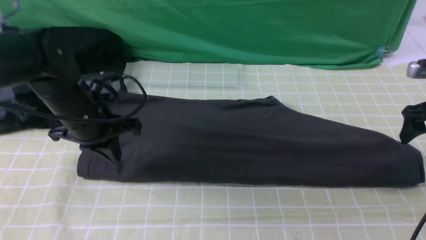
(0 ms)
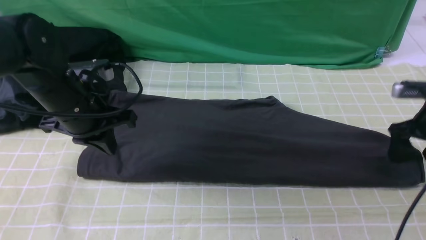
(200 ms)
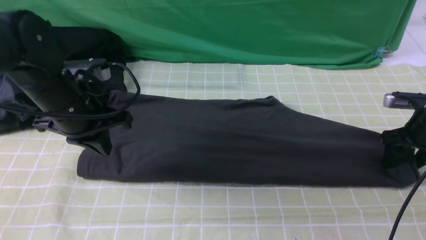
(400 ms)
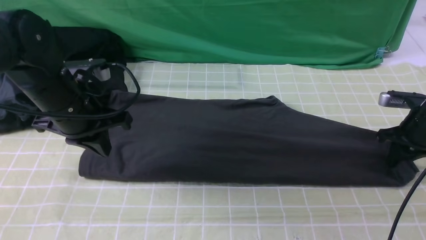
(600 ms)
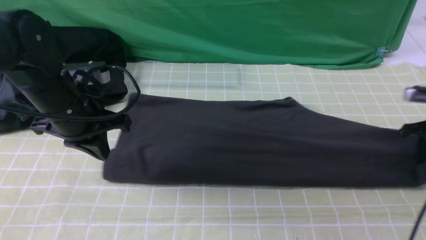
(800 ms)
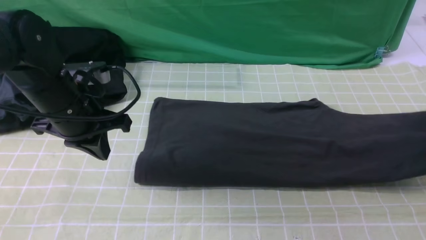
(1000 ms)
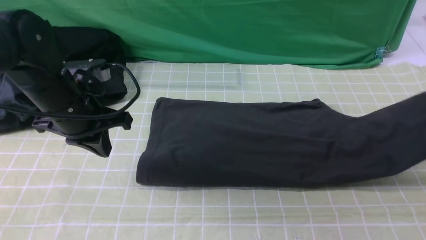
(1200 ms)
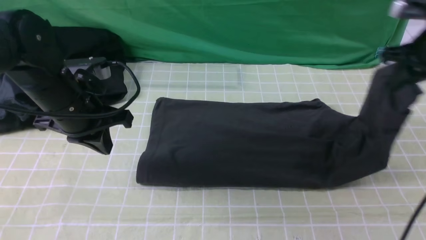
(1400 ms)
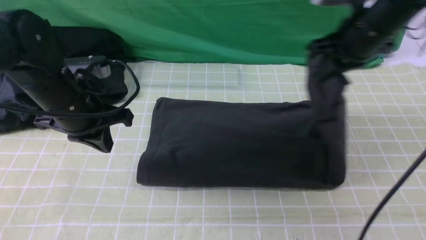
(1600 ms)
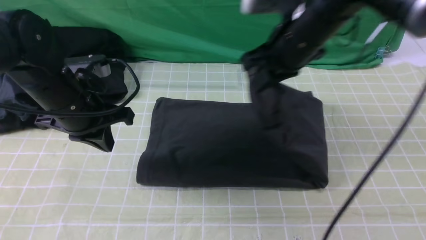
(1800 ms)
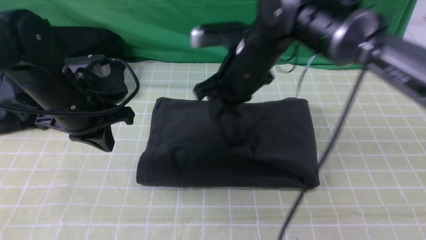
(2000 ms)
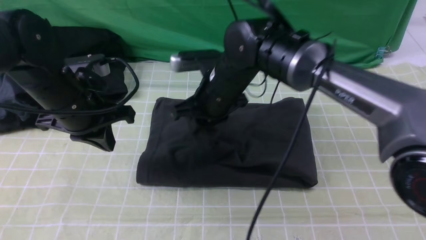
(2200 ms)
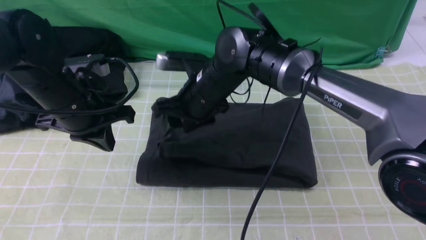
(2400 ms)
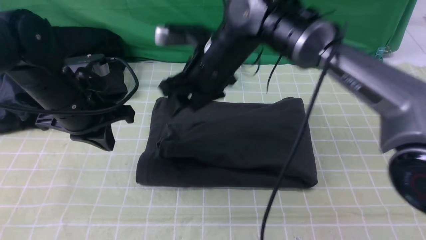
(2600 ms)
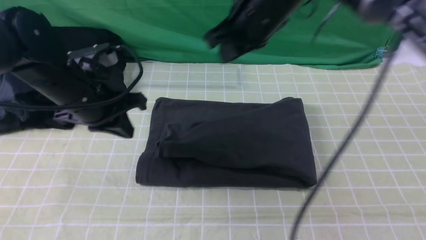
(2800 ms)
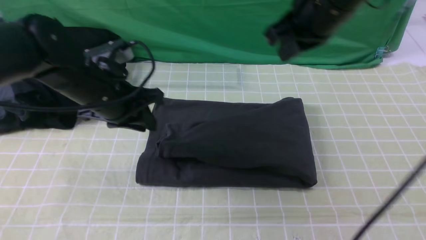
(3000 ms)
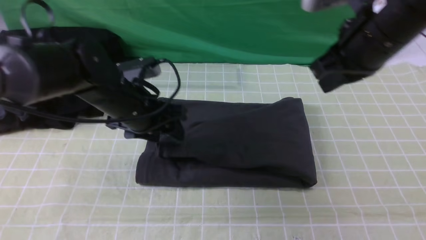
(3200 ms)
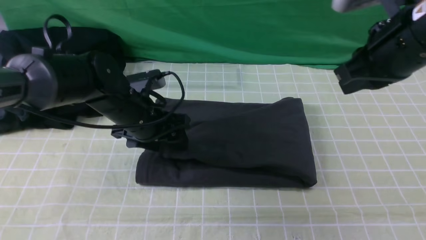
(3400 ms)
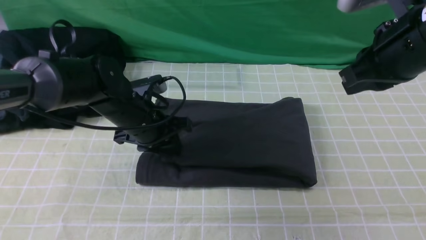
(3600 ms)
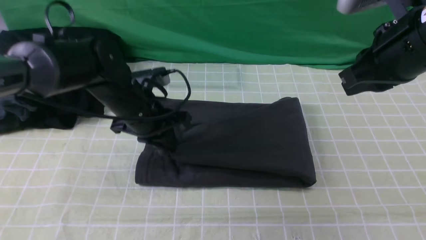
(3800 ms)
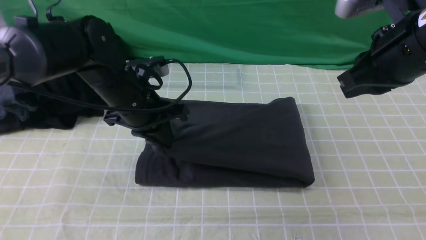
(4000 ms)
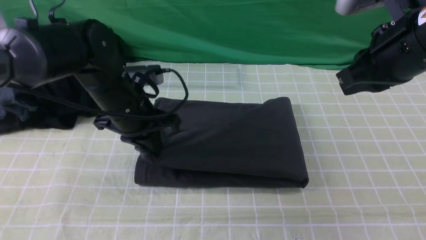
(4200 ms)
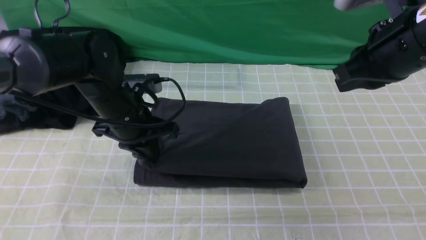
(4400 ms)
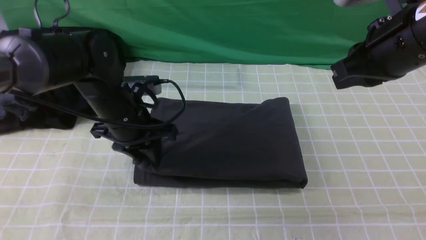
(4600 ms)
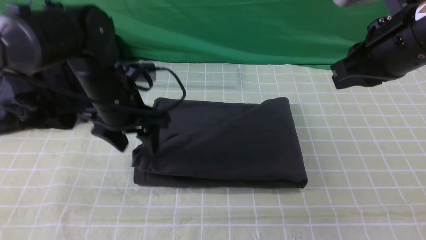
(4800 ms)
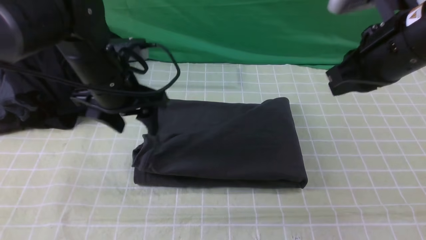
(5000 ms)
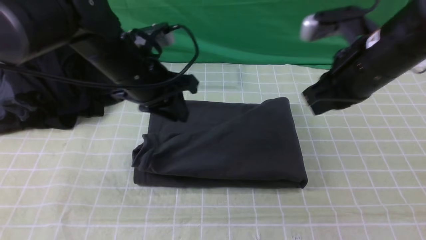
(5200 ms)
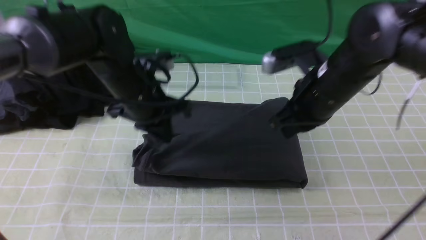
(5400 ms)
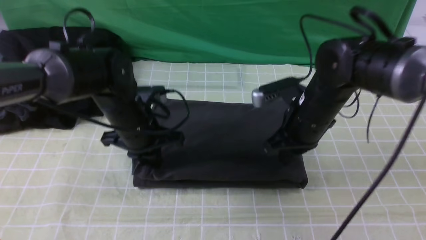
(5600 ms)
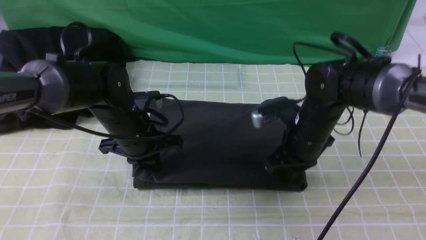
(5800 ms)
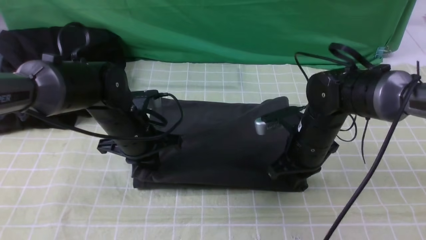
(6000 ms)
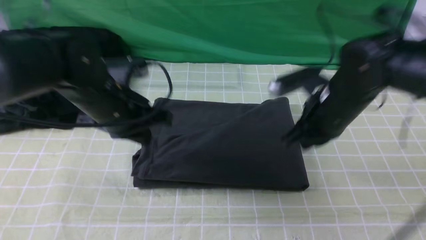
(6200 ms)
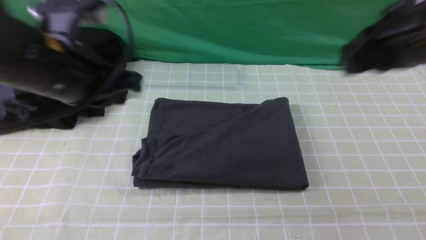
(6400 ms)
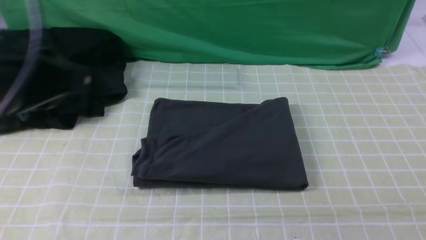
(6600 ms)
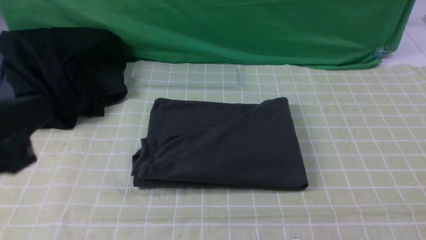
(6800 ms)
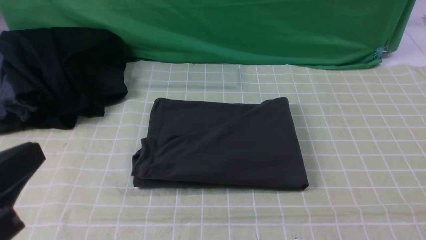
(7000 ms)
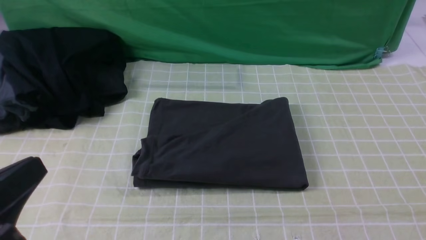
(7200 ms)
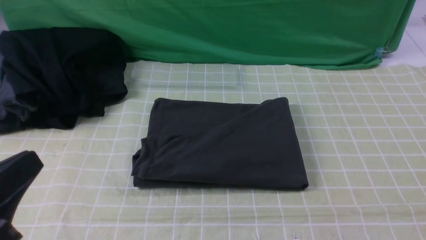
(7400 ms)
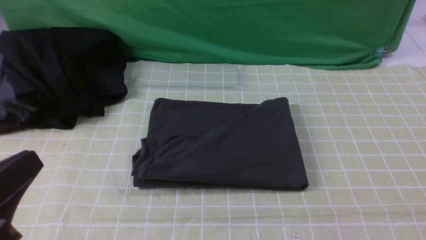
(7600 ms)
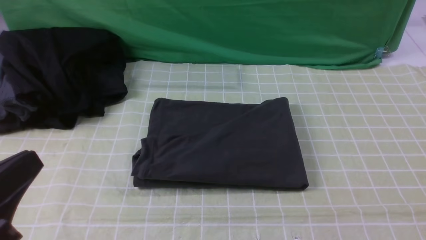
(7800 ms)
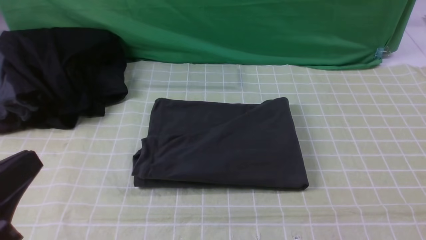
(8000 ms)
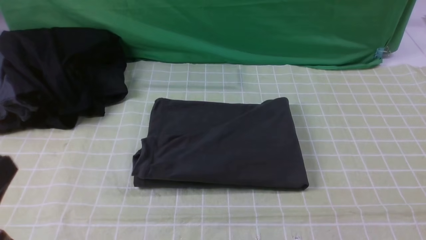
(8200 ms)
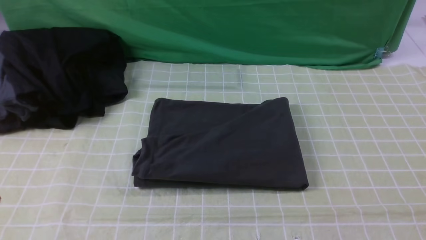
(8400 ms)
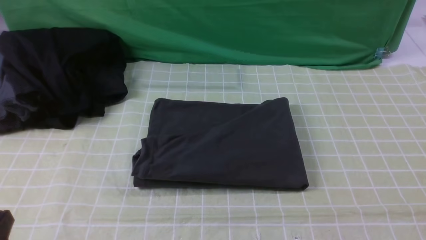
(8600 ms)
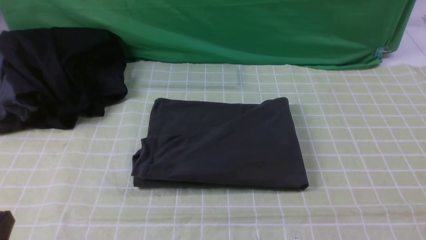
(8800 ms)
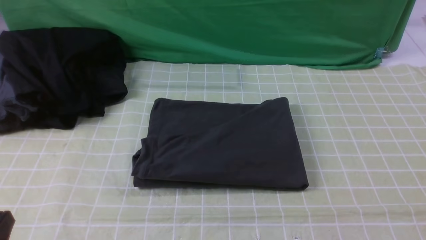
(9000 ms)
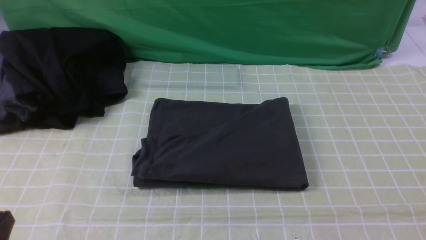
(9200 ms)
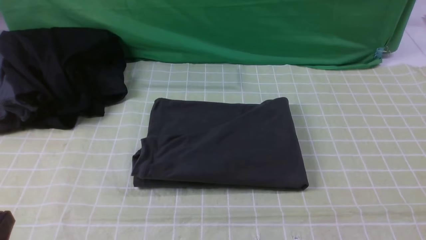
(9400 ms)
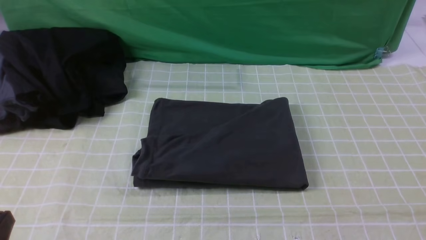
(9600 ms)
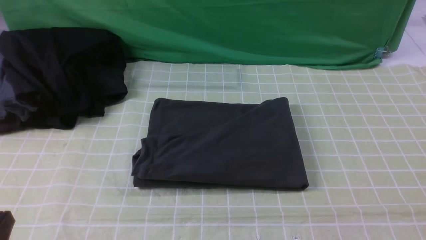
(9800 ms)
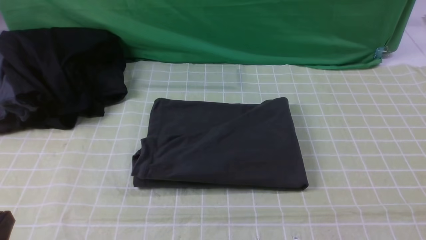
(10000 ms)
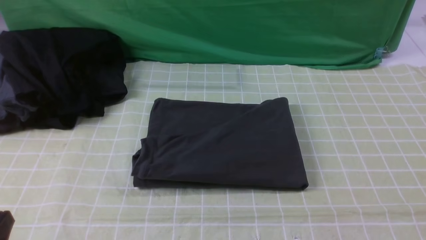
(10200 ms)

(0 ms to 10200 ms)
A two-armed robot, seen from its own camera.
Step, 800 ms - 2400 ms: use the right arm to drag the right edge of the fabric to the left and folds it over the left edge.
0 ms - 1400 ms: The right gripper heads upward and to the left, covering approximately 15 cm, and closes up.
1400 ms - 3000 ms: The left gripper changes place by some 5 cm, and opens up. The right gripper travels to the left and upward by about 15 cm, and opens, then closes once more.
3000 ms - 4400 ms: The right gripper shifts about 10 cm to the right and backward. Meanwhile the left gripper opens, then closes again.
4400 ms - 5800 ms: The right gripper shifts roughly 20 cm downward. Meanwhile the left gripper opens, then closes once more.
5800 ms - 7200 ms: The right gripper shifts about 40 cm backward, to the right and upward. Meanwhile the left gripper travels backward and upward by approximately 30 cm.
7200 ms - 8800 ms: The left gripper heads downward, covering roughly 10 cm.

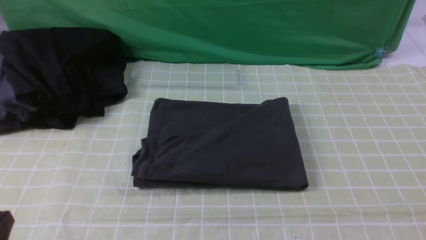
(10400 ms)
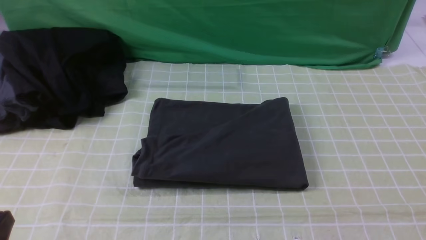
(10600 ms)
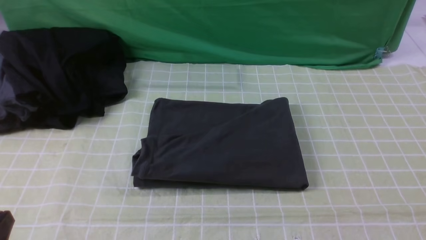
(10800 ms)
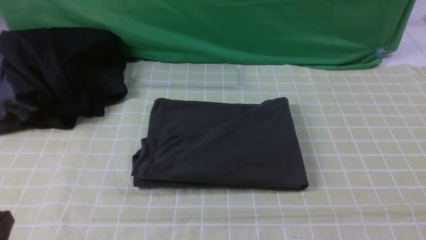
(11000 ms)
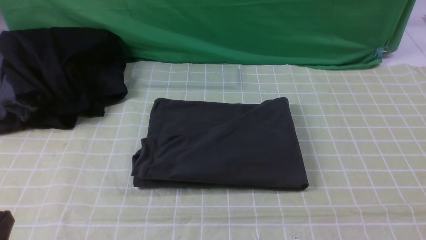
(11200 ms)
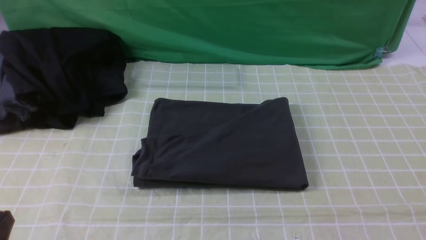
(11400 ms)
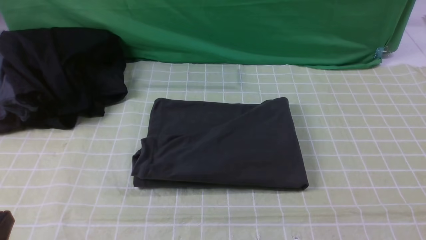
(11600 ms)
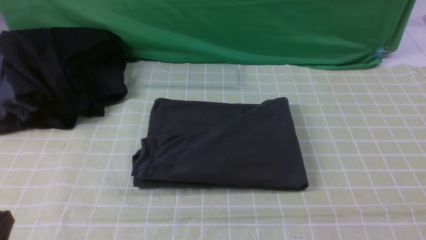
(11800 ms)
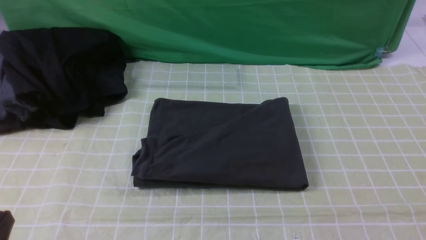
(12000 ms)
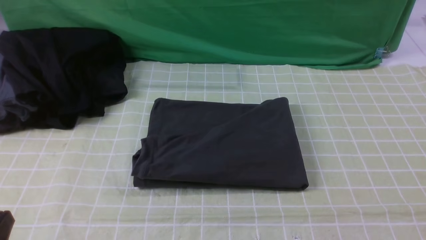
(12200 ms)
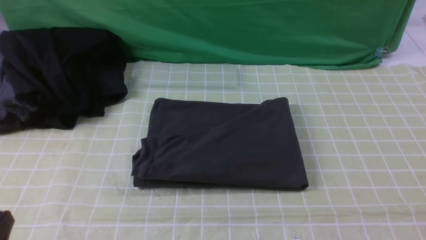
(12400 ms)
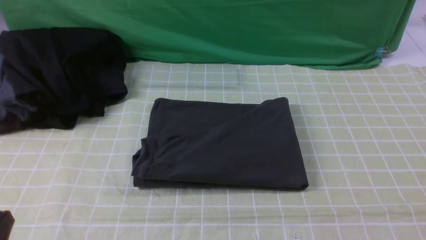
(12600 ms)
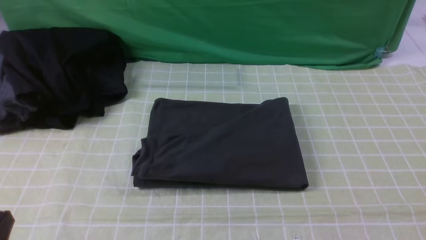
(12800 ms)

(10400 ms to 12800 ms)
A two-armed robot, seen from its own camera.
11600 ms - 12800 ms: Both grippers stay put.

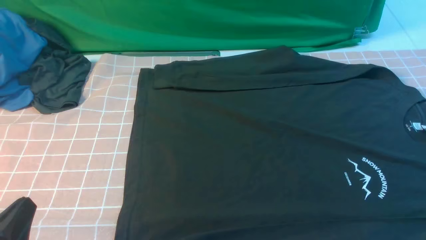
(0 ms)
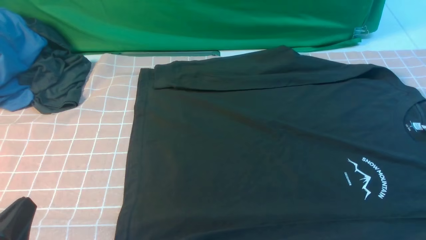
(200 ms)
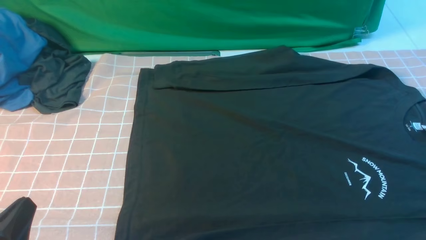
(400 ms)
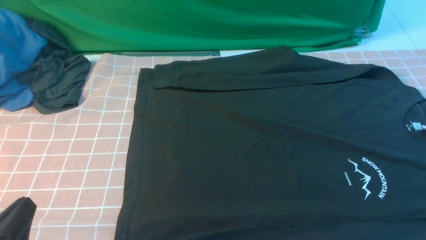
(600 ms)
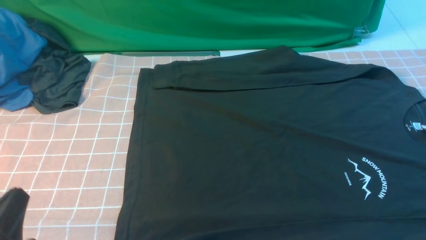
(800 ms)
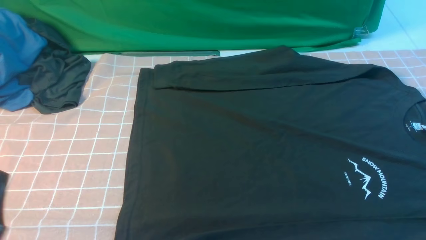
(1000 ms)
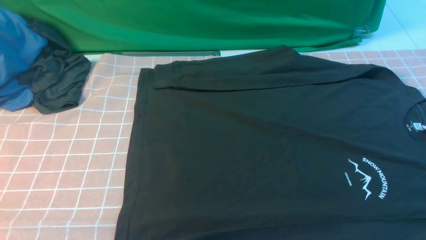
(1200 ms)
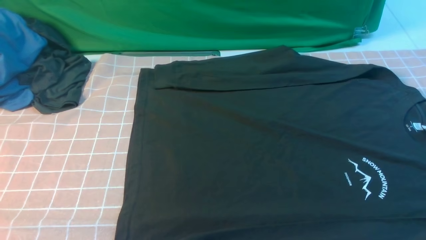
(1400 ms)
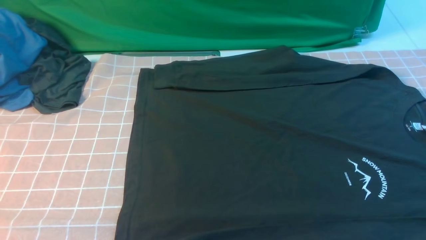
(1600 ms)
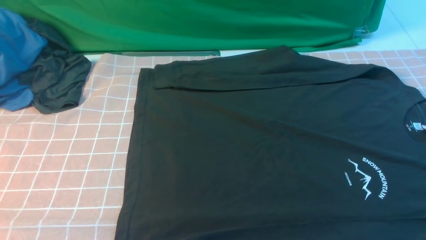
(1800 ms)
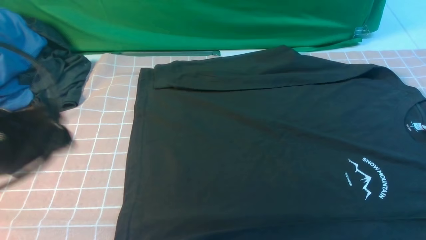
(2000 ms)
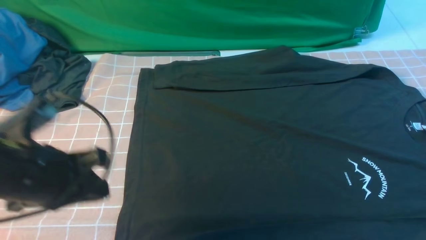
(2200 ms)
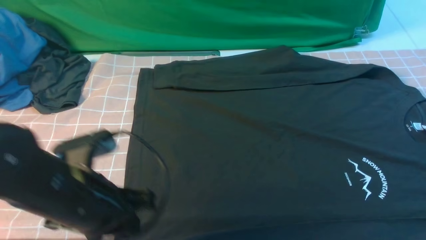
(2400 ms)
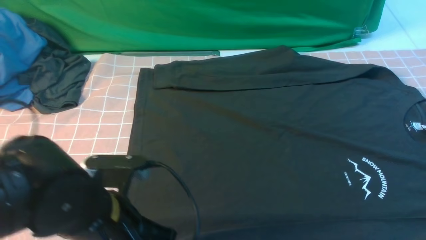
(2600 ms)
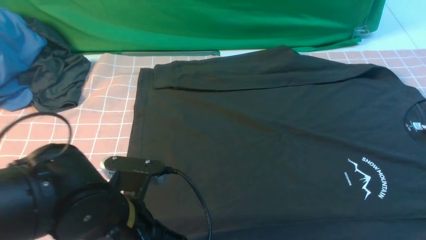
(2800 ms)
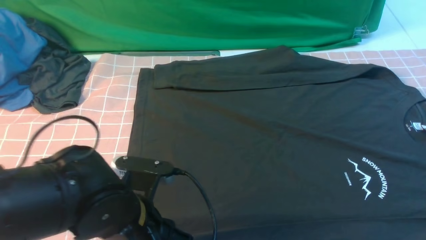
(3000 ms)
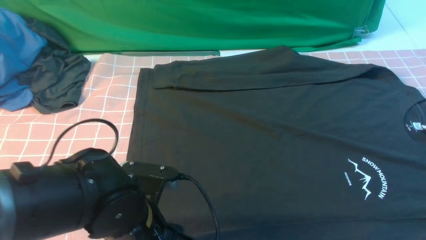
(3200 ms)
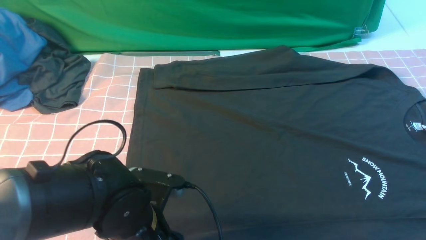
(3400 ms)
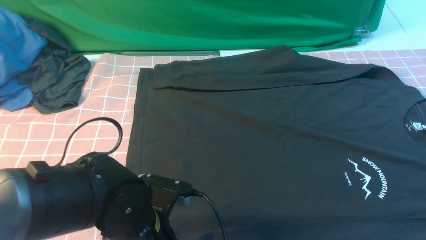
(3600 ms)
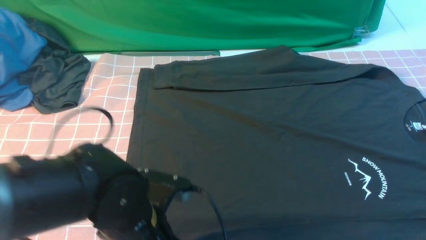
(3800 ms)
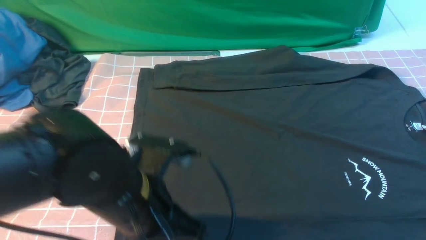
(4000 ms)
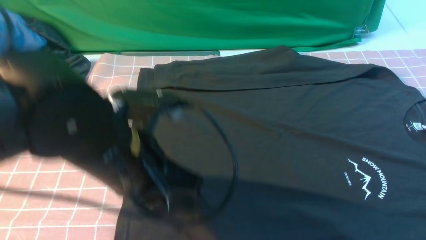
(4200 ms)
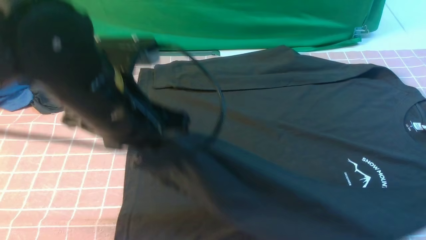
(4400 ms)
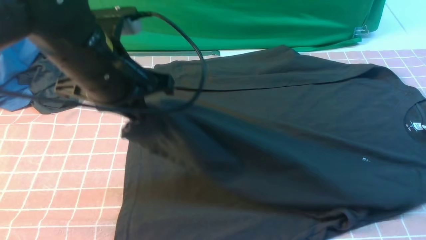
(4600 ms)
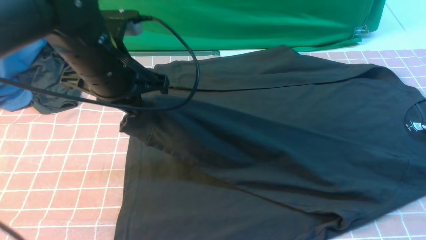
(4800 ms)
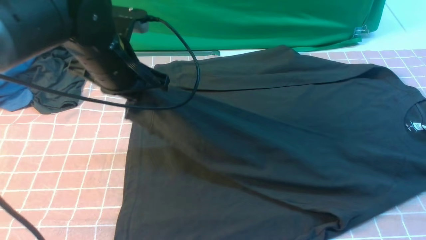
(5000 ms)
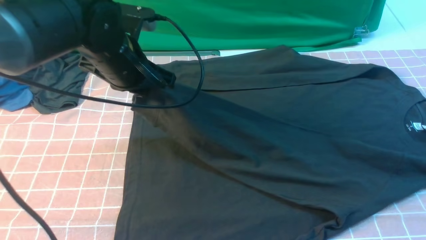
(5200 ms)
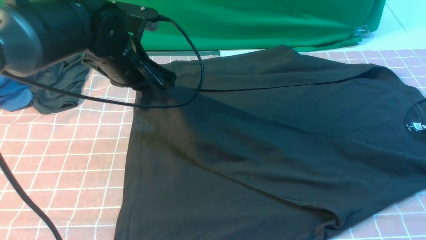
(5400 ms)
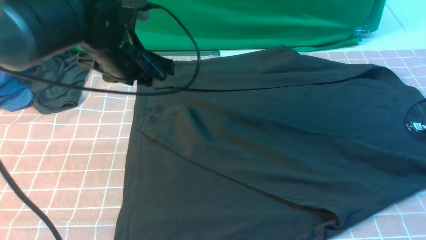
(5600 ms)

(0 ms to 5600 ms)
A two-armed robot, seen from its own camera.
Step, 0 ms - 3800 ms: use the left arm to clamp the cuff closest to it.
Step, 4200 ms - 5400 ms: use the left arm to drag and place the cuff at the centered position on the left edge of the fabric.
0 ms - 1400 ms: The left gripper moves upward, roughly 10 cm.
1400 ms - 2800 ms: The right gripper goes roughly 15 cm upward and forward, and closes; the left gripper shifts about 20 cm to the right, forward and downward.
2800 ms - 4200 ms: The left gripper shifts roughly 10 cm upward, and opens, then closes once more.
4200 ms - 5600 ms: The left gripper travels forward by about 15 cm, and opens.
